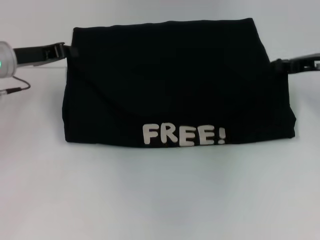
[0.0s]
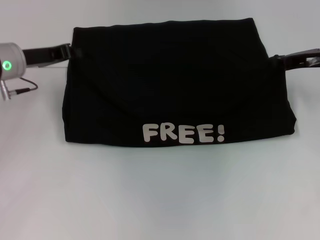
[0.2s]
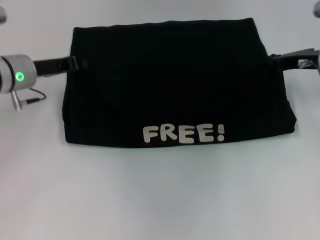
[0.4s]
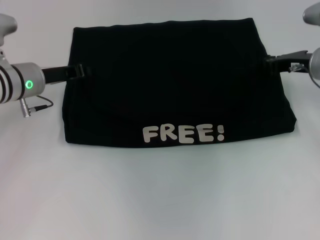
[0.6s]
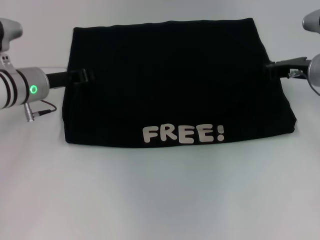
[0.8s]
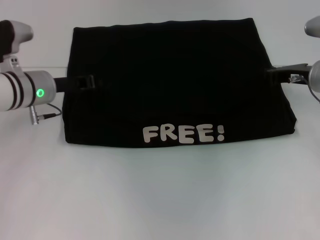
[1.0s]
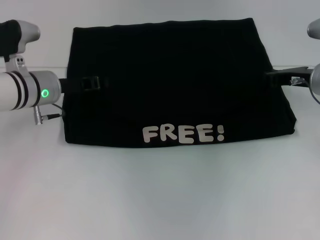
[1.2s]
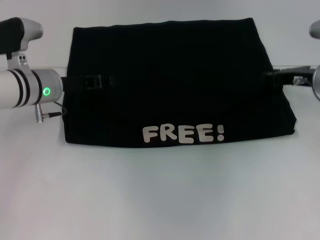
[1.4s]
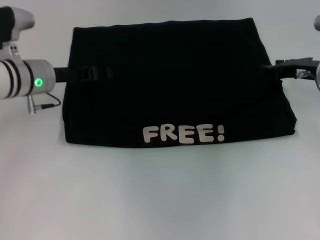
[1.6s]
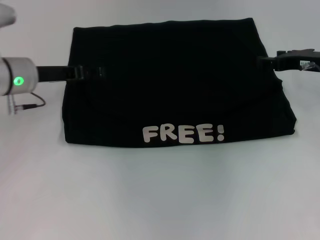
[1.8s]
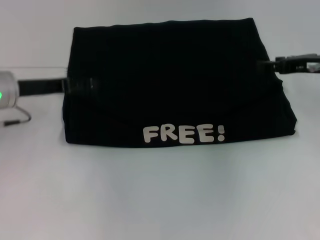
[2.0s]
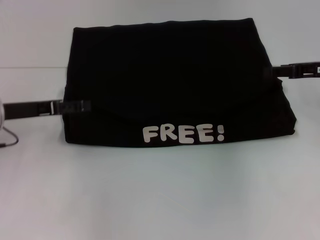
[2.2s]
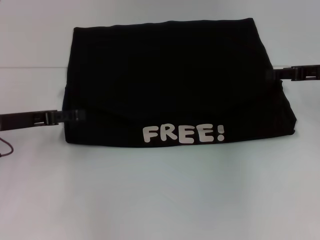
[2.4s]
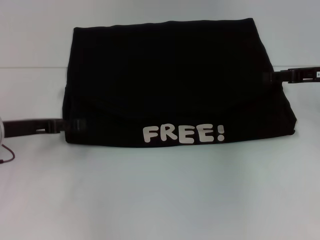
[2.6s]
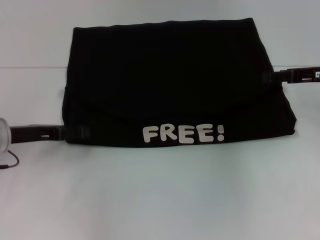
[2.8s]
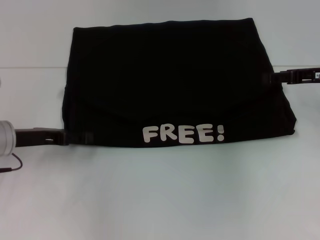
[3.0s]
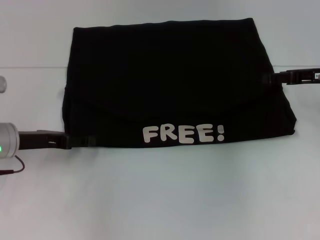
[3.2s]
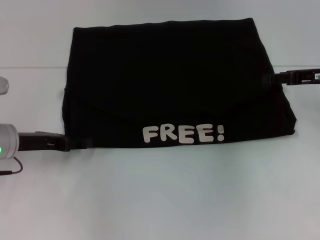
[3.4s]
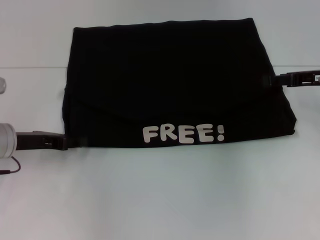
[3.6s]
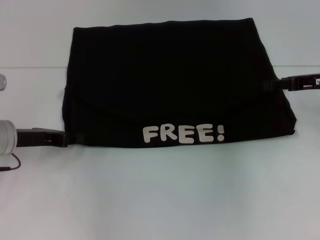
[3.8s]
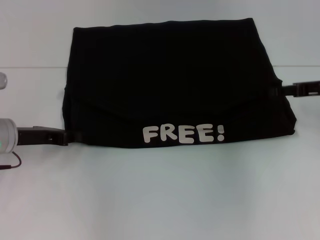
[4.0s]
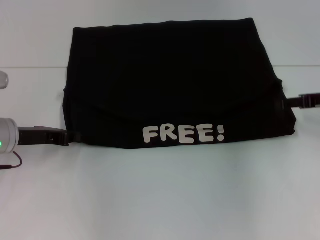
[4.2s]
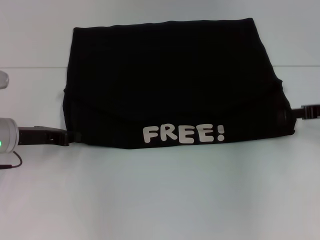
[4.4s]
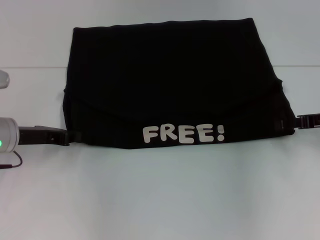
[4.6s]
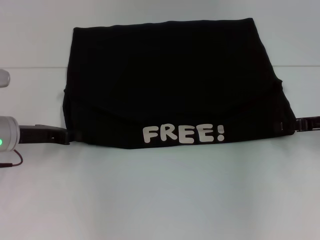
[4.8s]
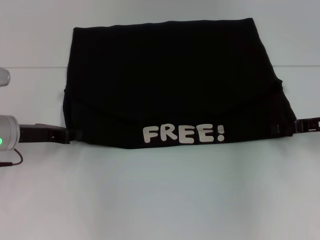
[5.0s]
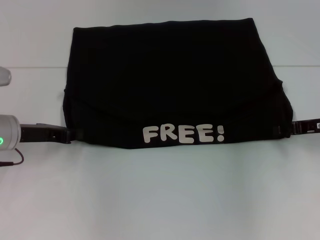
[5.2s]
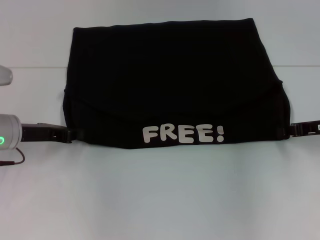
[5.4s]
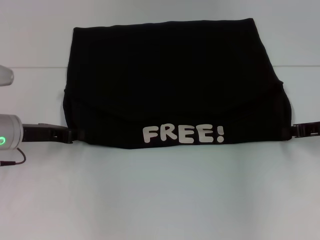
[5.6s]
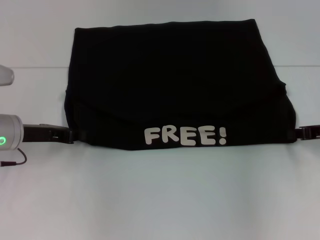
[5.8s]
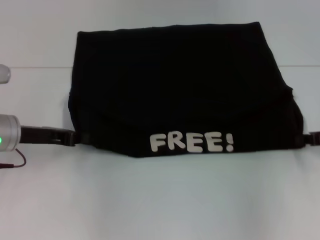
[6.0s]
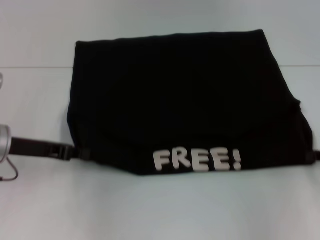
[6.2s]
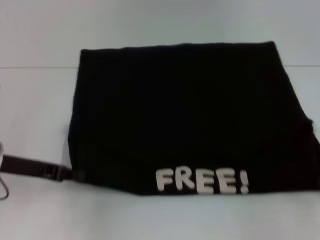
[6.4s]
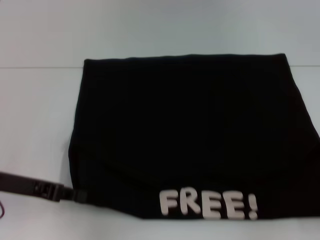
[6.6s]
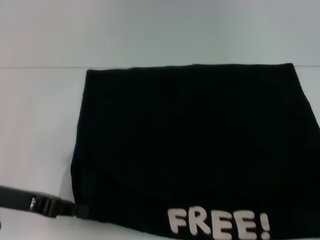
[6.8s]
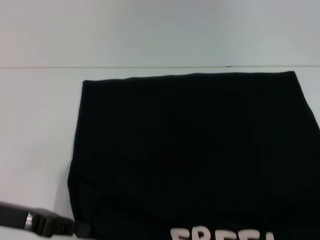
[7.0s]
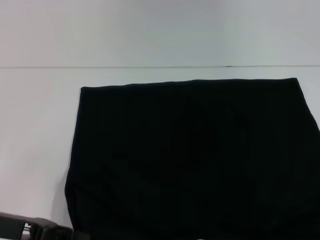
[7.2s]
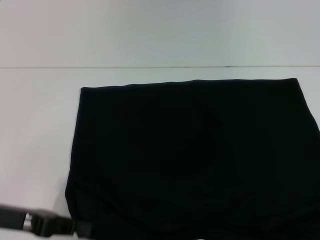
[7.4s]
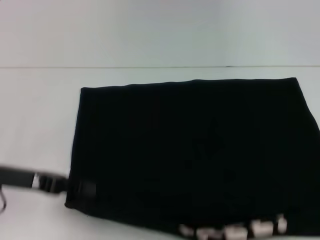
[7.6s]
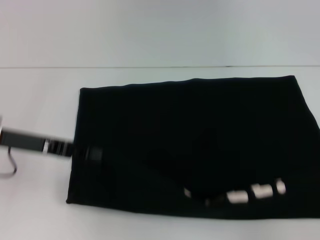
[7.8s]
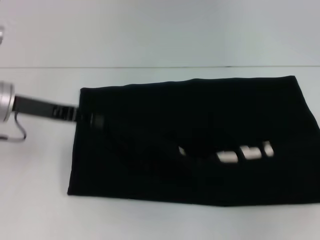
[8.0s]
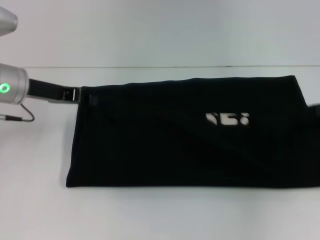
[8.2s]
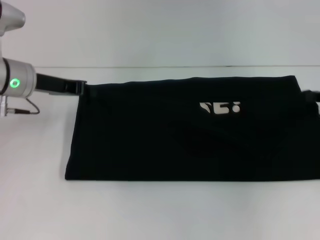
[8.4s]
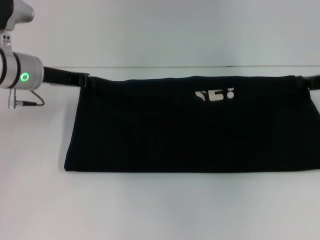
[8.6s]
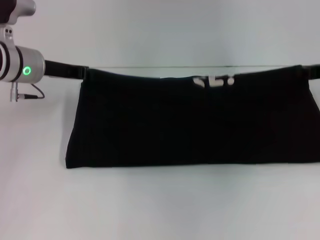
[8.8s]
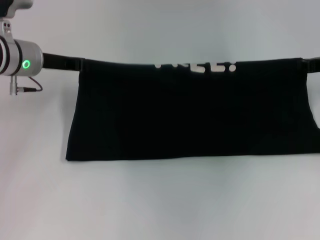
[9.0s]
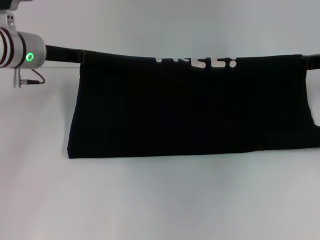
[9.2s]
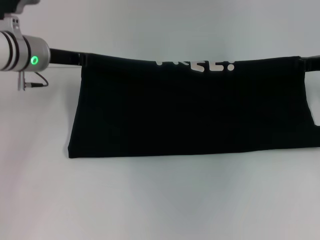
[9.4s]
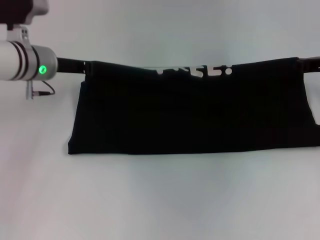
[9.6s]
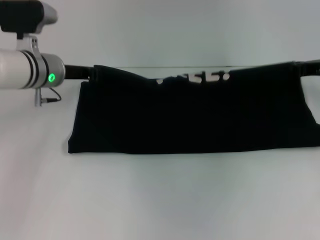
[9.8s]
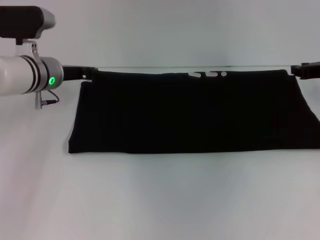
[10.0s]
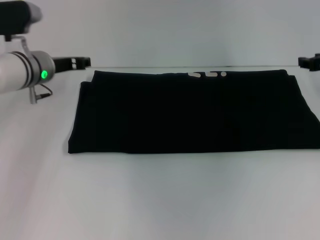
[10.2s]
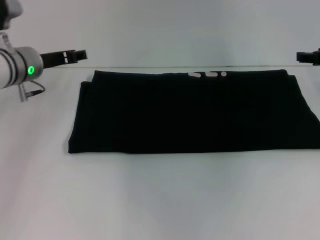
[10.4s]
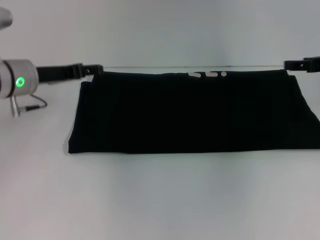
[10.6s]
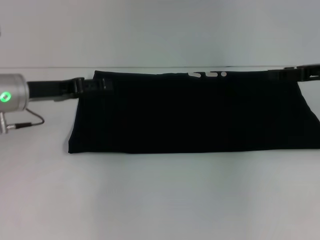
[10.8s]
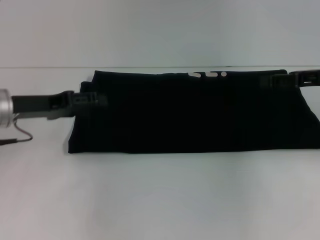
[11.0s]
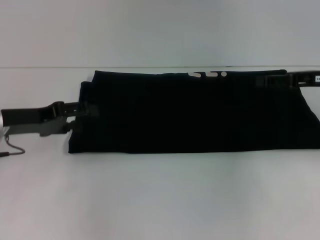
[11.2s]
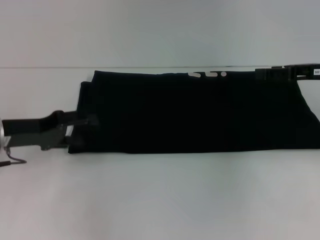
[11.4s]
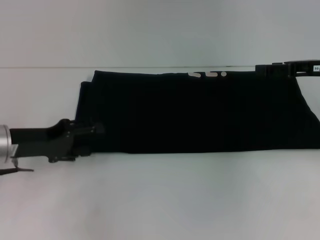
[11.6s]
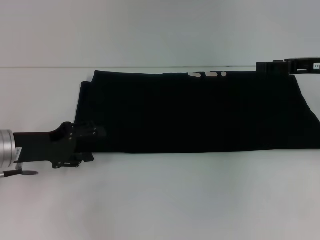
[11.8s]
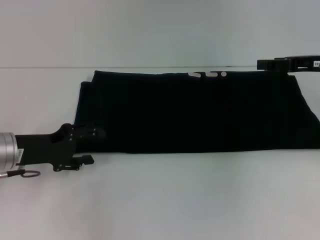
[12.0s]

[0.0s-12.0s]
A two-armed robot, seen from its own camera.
Step, 1.8s to 7.0s: Pull the clothes with your left hand.
Step, 1.8s to 7.0s: Pull the clothes with your right hand.
Step, 7.2s to 10.0s: Fold the clothes with your right hand.
0.0s to 1.6s: The left gripper heads to the right, covering about 5 cm, and opens its fingers.
1.6s to 3.0s: The right gripper opens its fingers, while the left gripper shifts about 10 cm backward and to the left, and opens.
3.0s to 4.4s: The left gripper closes its fingers.
4.4s to 6.0s: The right gripper closes.
6.0s to 7.6s: The right gripper shifts approximately 15 cm backward and to the right. The left gripper heads backward, covering some 5 cm.
7.6s to 9.0s: The right gripper is displaced forward and to the left by about 25 cm; the left gripper heads forward, covering approximately 15 cm.
9.0s to 10.4s: The left gripper opens. Meanwhile the right gripper opens its fingers.
10.4s to 12.0s: The left gripper travels backward and downward by about 15 cm, and opens.

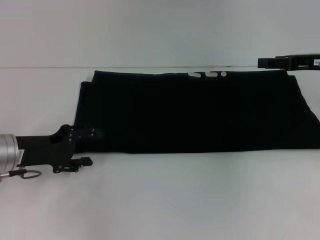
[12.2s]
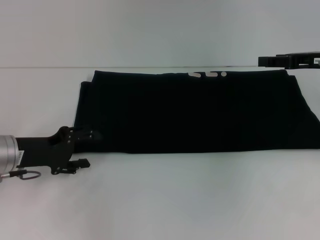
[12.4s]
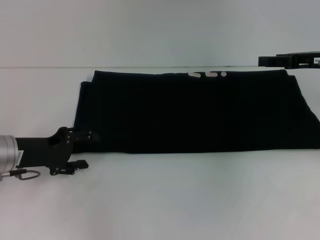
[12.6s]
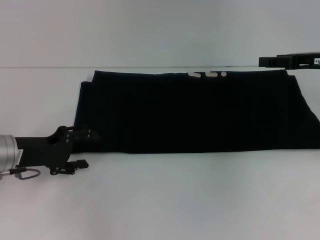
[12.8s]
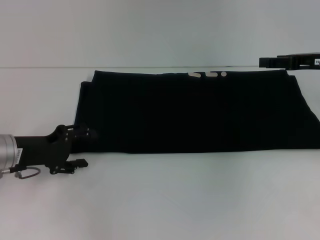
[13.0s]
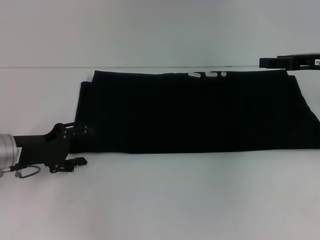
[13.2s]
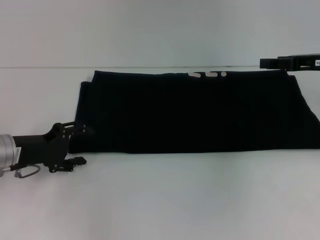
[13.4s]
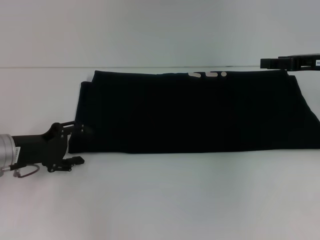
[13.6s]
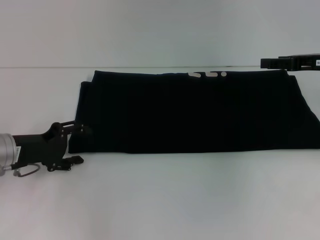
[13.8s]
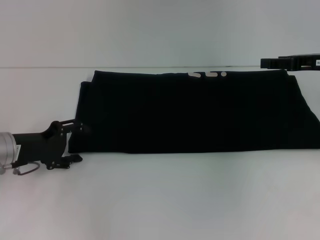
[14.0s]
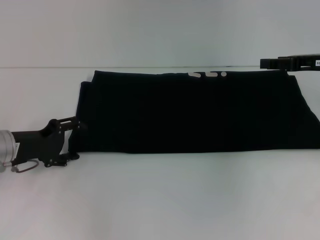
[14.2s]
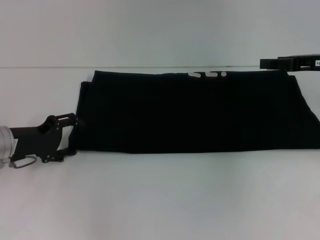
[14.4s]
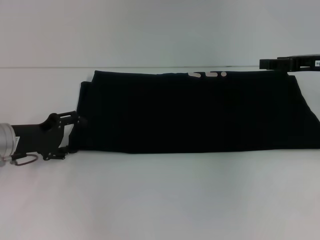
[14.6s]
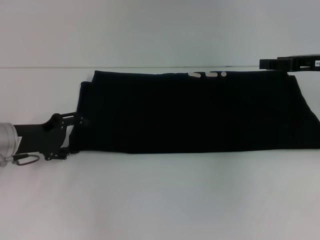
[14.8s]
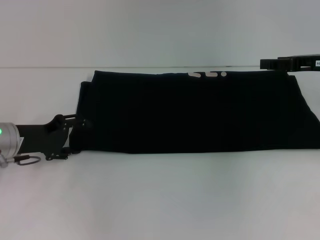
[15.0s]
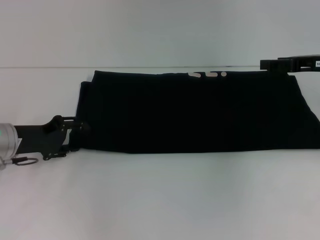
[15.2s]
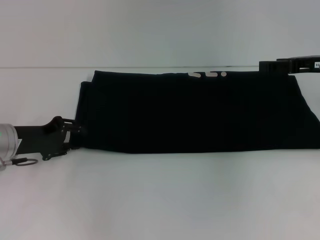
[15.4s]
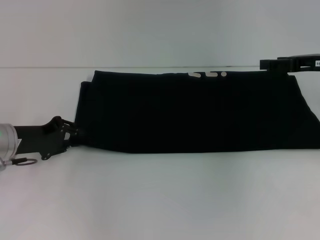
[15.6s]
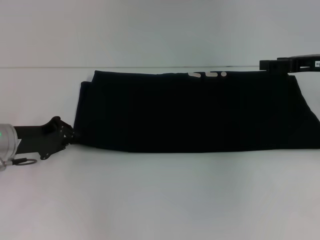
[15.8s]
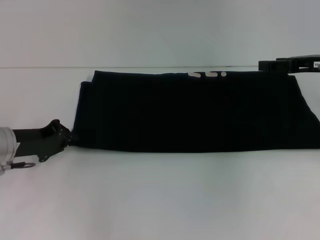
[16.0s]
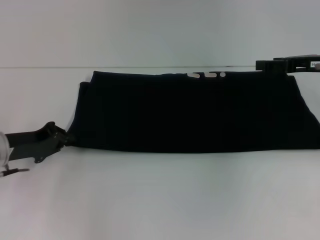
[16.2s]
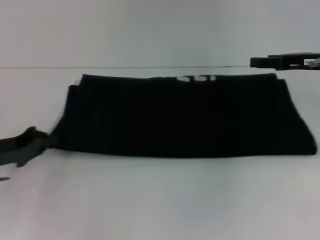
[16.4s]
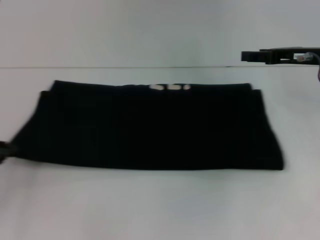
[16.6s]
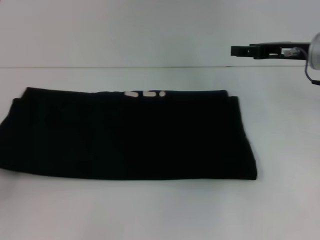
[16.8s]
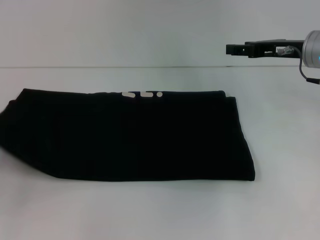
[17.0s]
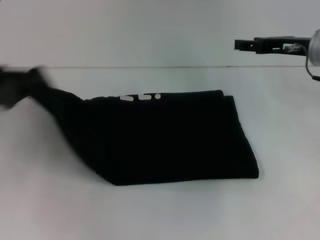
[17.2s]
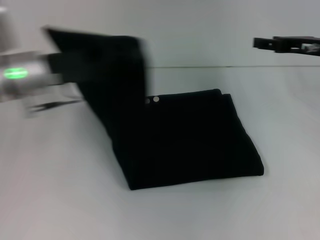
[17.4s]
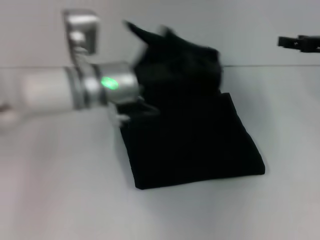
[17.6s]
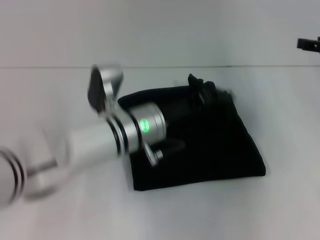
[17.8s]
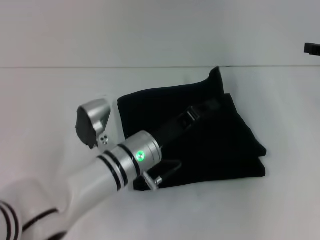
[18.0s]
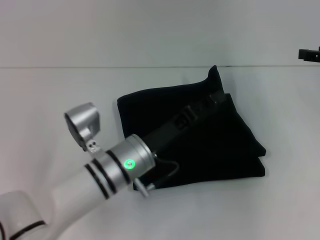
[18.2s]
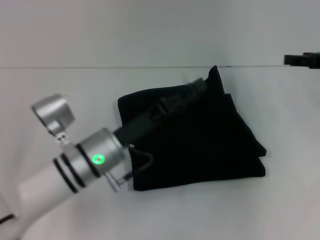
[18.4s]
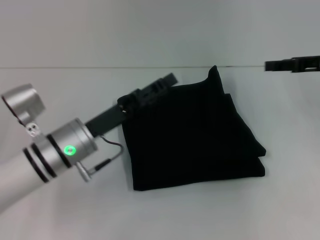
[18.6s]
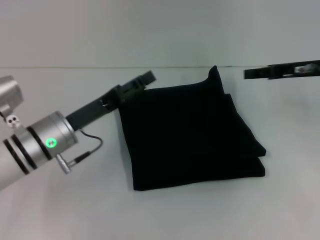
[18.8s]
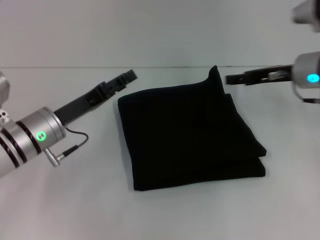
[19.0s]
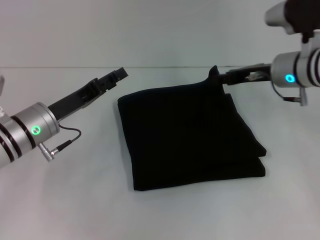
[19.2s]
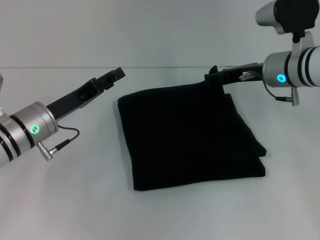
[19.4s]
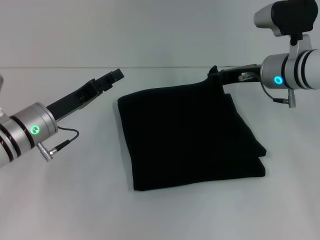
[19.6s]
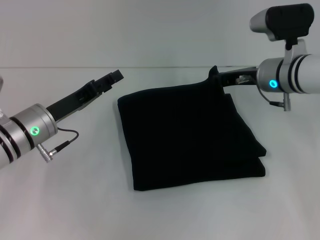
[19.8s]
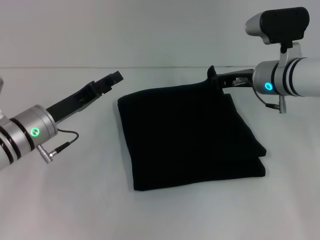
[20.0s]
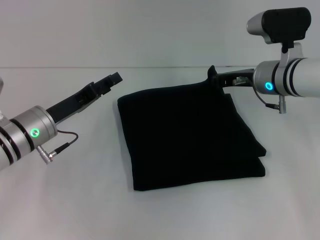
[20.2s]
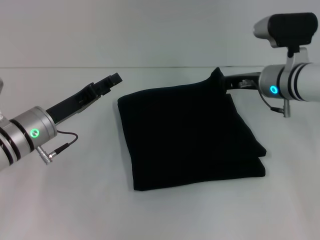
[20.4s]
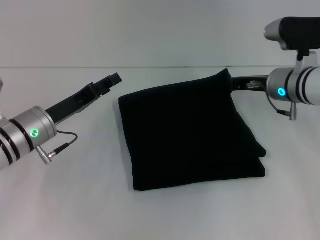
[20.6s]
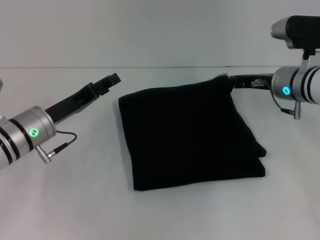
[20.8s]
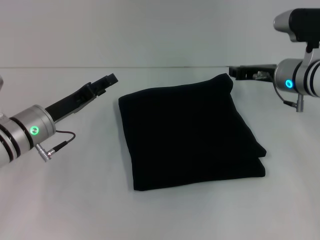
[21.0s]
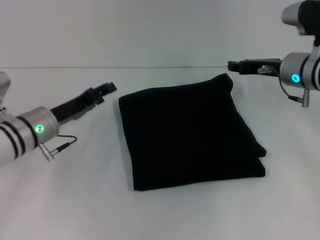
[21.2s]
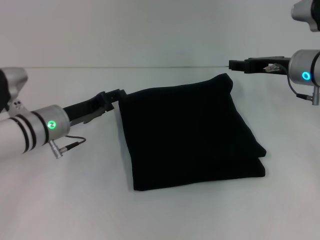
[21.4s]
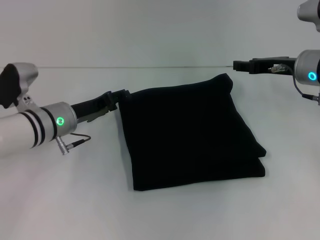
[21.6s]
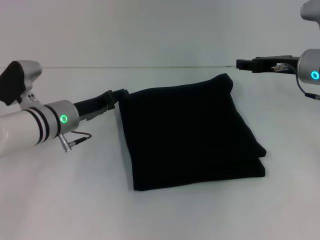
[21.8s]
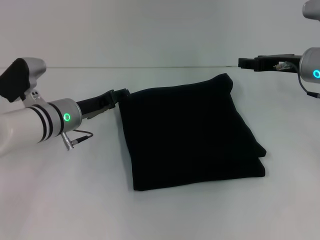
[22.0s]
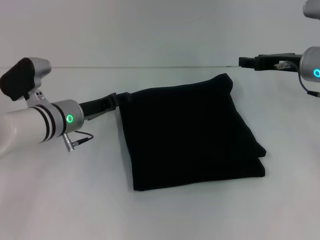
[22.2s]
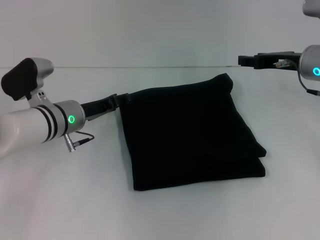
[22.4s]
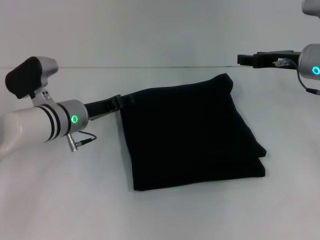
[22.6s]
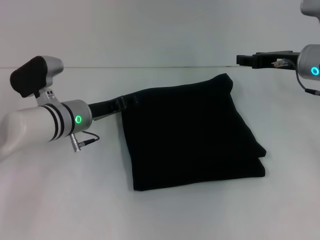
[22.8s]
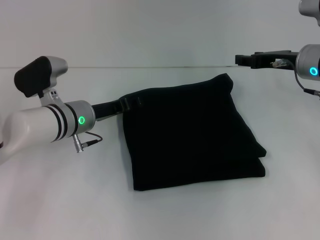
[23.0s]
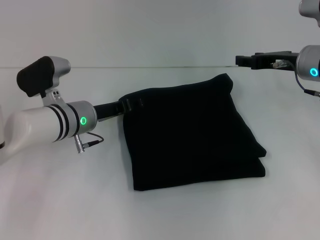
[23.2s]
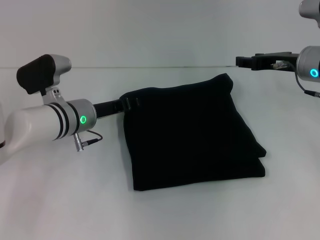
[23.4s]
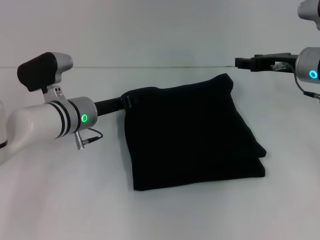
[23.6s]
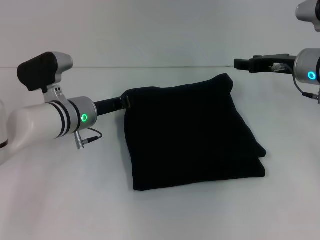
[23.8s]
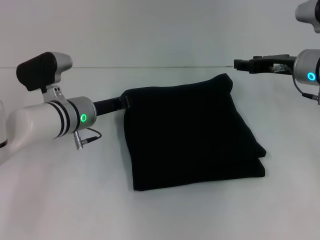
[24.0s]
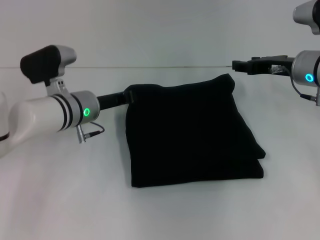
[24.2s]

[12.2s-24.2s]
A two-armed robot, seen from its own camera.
Step, 12.2s to 18.2s: Fold the clothes with your left hand.
12.2s to 15.2s: The grippers stay close to where they were, moving slightly.
15.2s to 16.6s: The left gripper shifts about 10 cm to the left and backward, and closes its fingers.
16.6s to 18.2s: The right gripper shifts roughly 10 cm to the right. Meanwhile the left gripper is displaced to the right by approximately 30 cm.
18.2s to 19.8s: The grippers both shift to the left by approximately 15 cm.
19.8s to 21.2s: The right gripper closes, then reopens.
21.2s to 22.6s: The left gripper ends up roughly 5 cm from where it was.
22.6s to 24.2s: The left gripper closes.
